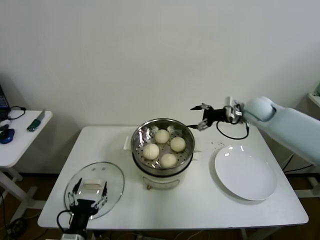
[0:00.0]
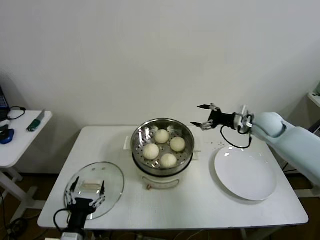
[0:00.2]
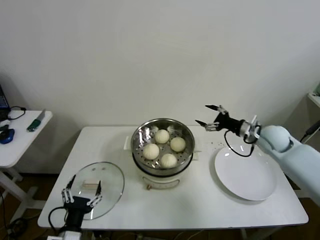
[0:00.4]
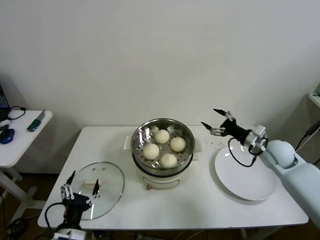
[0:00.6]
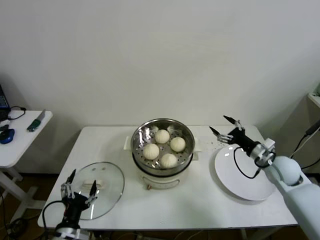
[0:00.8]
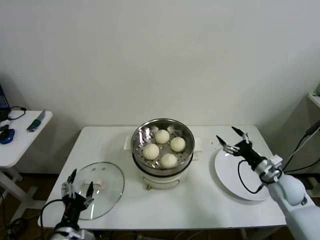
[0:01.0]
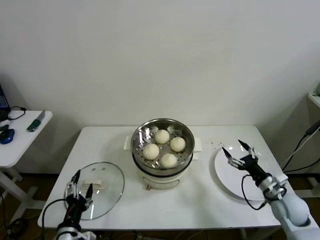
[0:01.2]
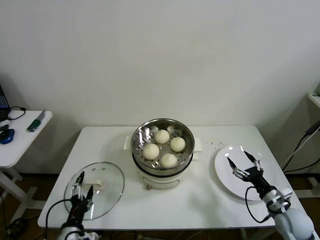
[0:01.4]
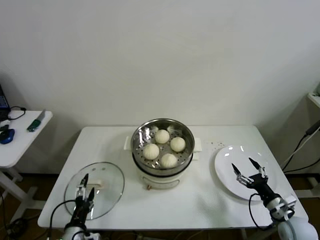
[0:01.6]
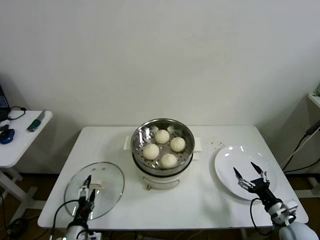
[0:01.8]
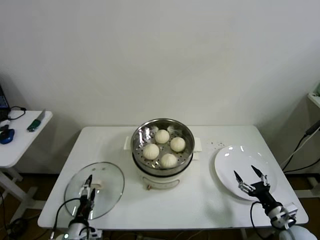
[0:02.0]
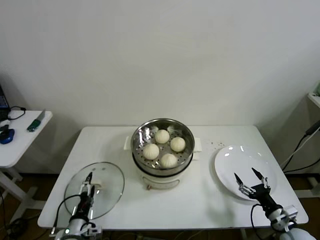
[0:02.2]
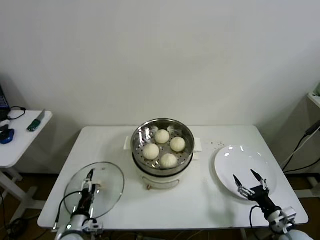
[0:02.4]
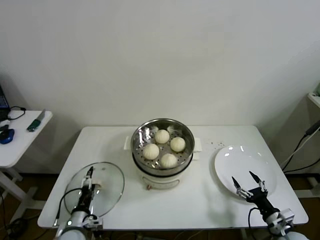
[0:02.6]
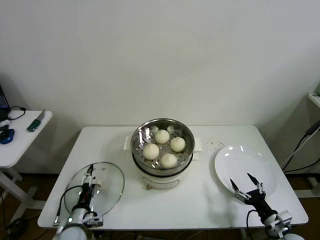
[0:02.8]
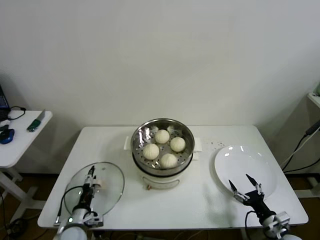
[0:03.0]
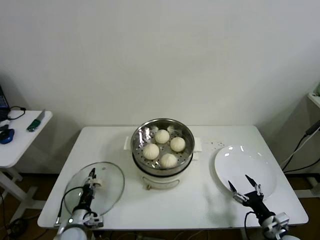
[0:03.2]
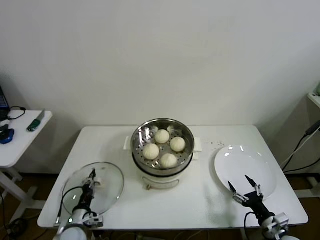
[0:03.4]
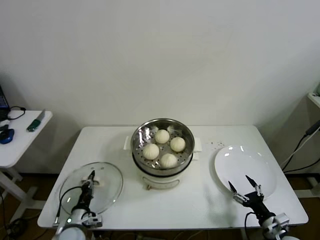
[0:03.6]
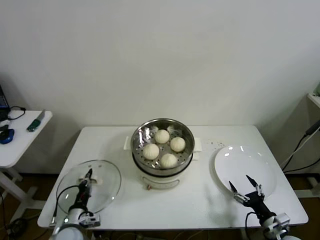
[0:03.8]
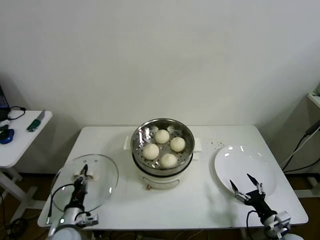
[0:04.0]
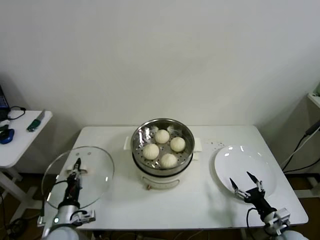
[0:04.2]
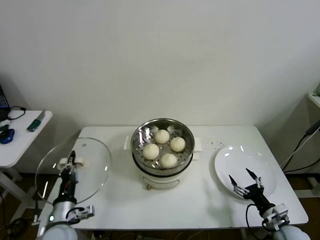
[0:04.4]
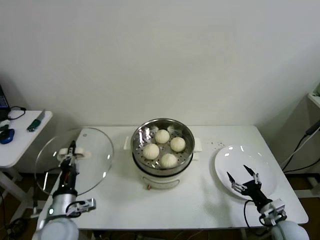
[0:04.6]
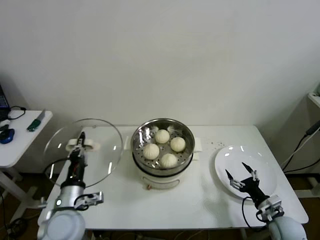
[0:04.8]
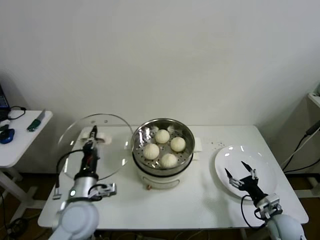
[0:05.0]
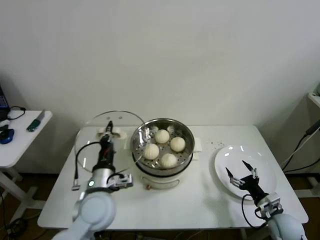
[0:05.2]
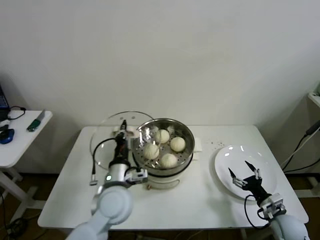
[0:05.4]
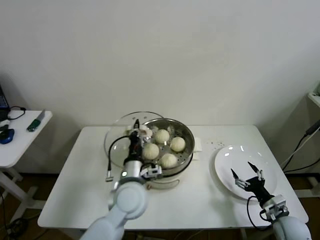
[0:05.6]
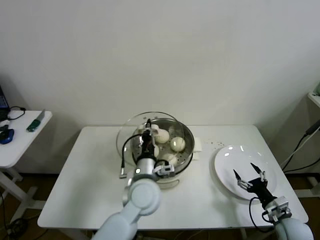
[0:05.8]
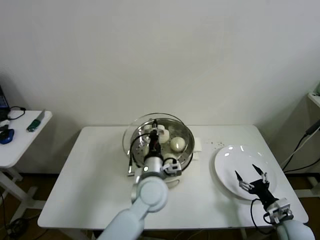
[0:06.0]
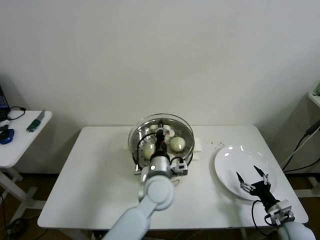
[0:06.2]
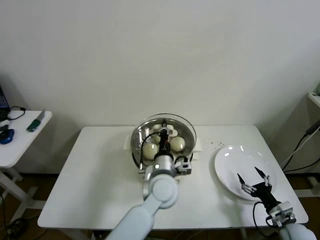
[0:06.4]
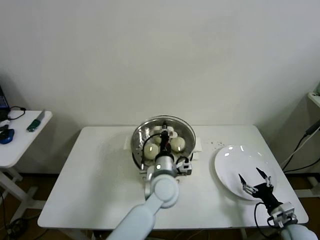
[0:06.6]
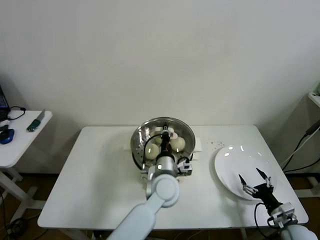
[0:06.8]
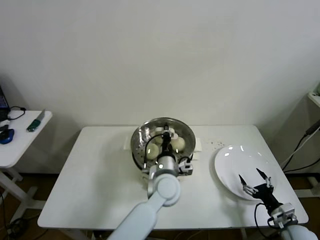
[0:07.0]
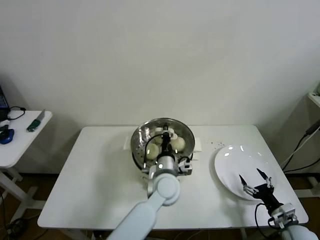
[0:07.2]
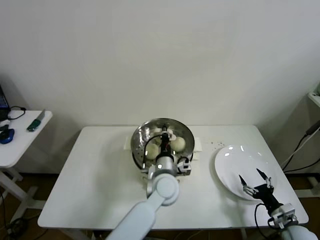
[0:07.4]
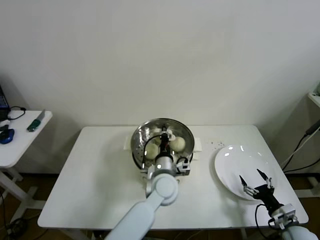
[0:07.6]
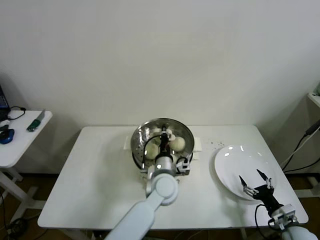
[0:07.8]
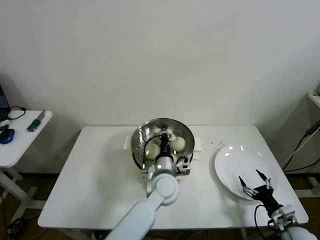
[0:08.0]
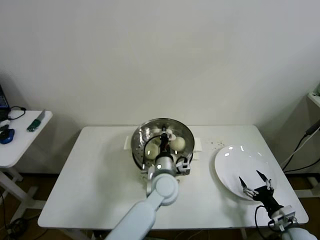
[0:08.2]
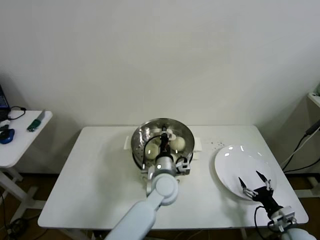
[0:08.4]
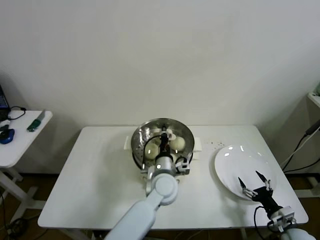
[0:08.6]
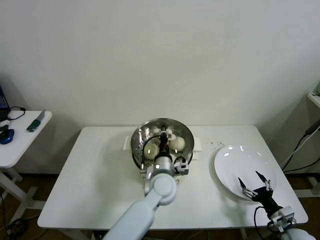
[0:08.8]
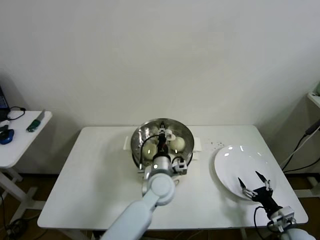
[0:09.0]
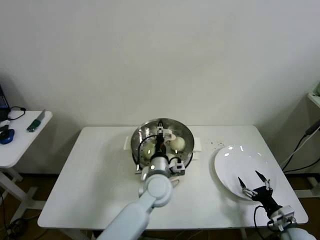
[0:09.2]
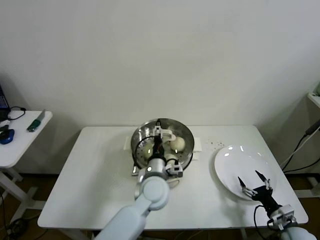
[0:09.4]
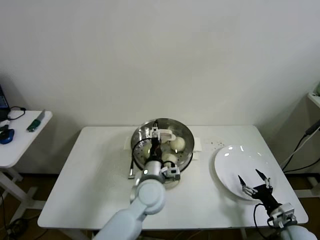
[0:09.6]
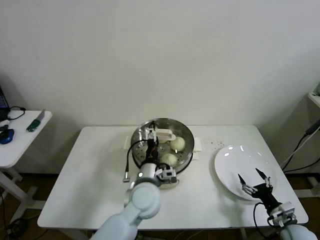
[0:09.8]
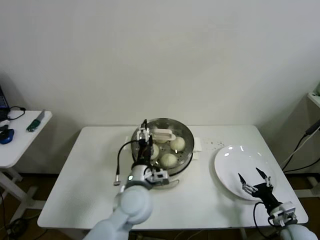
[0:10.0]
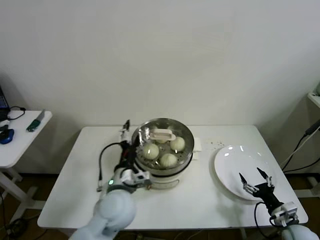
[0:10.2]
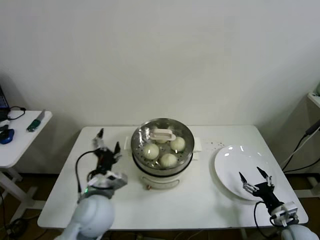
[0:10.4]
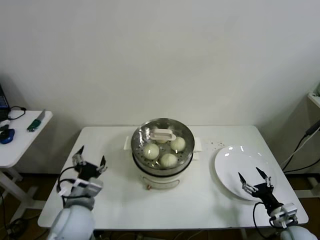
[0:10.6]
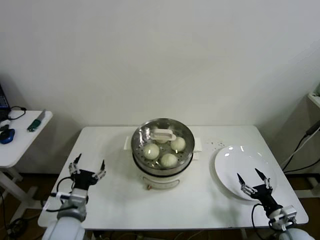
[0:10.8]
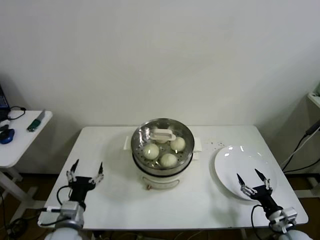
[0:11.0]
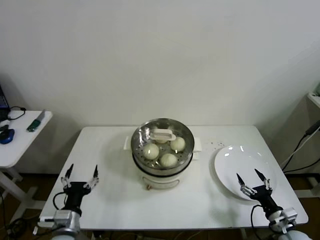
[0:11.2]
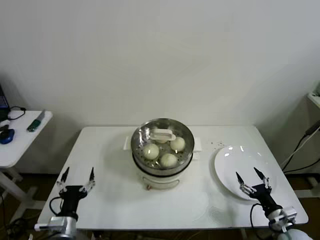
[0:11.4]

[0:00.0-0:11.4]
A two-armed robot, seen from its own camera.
Step, 0:00.0 to 0:03.6: Grasp the pot lid with left gripper.
Step, 0:03.8 to 0:09.4: Place the pot lid on the steamer with left gripper.
0:00.0 to 0:01.4: The right gripper goes roughly 35 cm backward and downward.
0:01.4 to 0:02.8: The right gripper moves backward and downward, some 10 cm. The left gripper goes some 10 cm downward and forward.
0:02.8 to 0:04.2: The left gripper is displaced upward by roughly 5 cm, and closes up.
0:04.2 to 0:05.6: The left gripper goes approximately 25 cm to the right, upward and forward.
0:05.6 to 0:07.2: The left gripper travels to the right by about 10 cm.
0:07.2 to 0:08.6: The grippers make only small movements.
0:08.6 to 0:10.0: The left gripper goes approximately 10 cm to the left and backward, and opens up.
0:10.0 to 0:11.4: The left gripper travels to the left, backward and downward by roughly 30 cm.

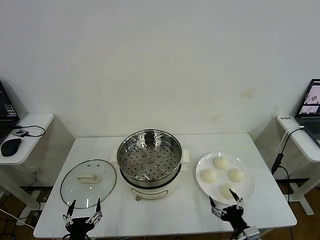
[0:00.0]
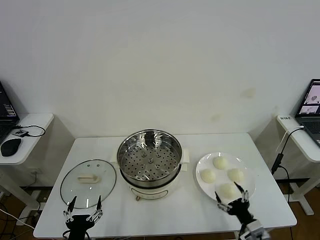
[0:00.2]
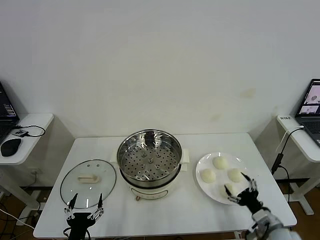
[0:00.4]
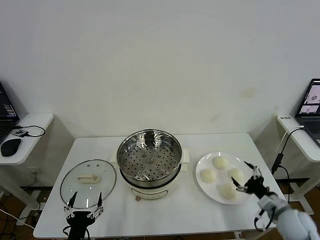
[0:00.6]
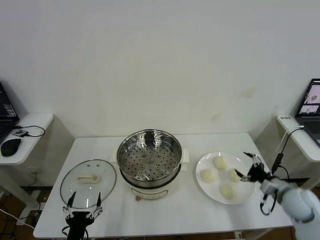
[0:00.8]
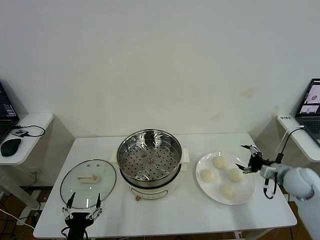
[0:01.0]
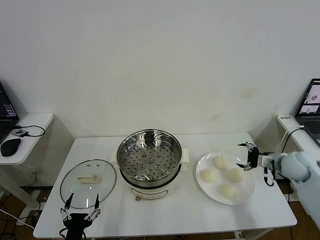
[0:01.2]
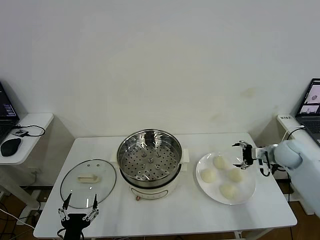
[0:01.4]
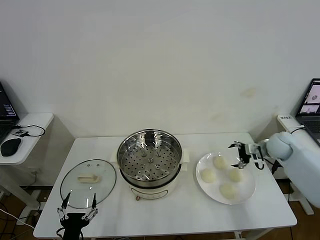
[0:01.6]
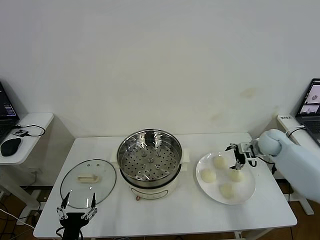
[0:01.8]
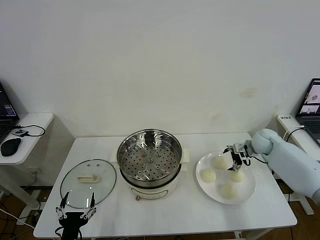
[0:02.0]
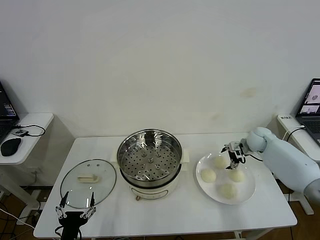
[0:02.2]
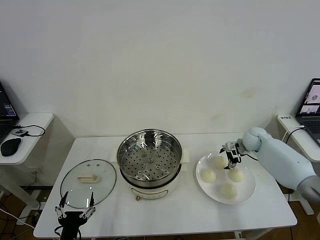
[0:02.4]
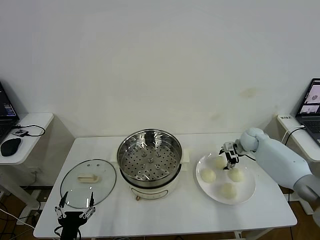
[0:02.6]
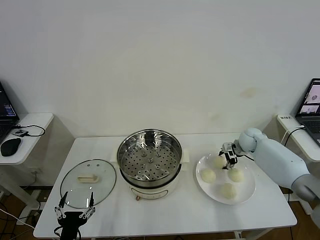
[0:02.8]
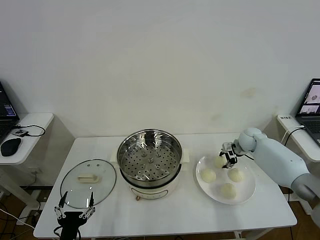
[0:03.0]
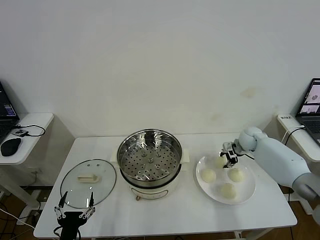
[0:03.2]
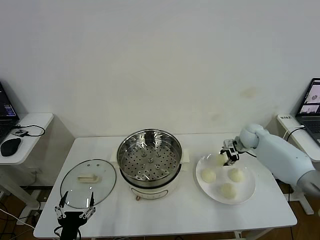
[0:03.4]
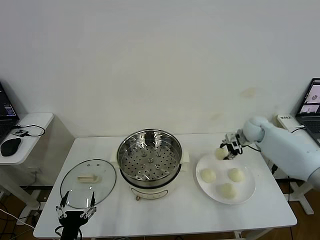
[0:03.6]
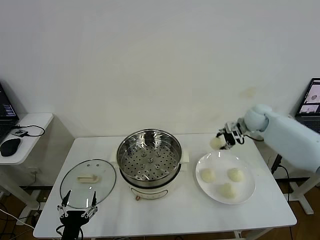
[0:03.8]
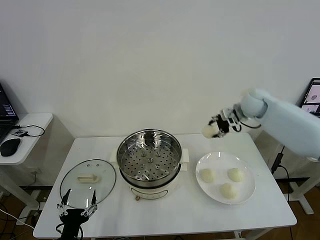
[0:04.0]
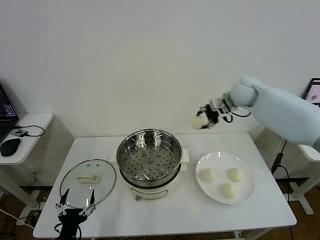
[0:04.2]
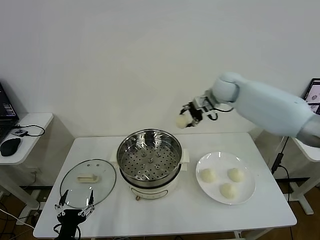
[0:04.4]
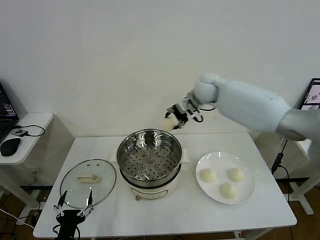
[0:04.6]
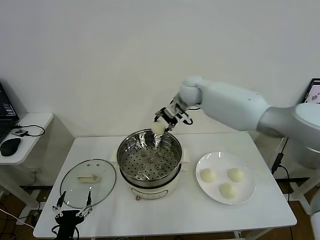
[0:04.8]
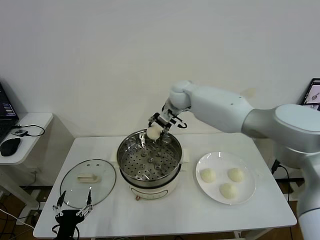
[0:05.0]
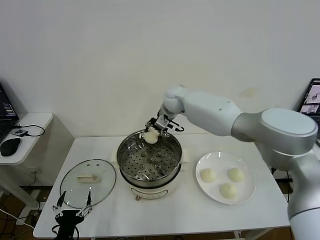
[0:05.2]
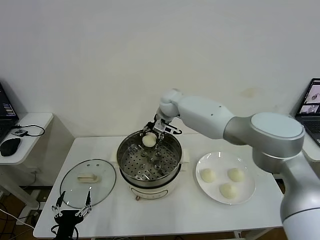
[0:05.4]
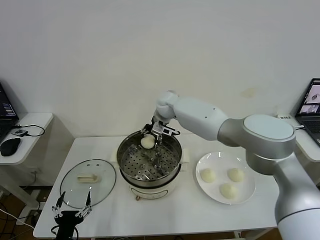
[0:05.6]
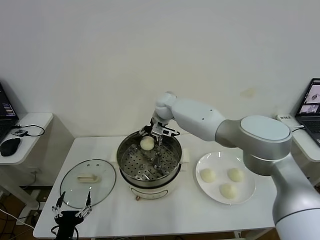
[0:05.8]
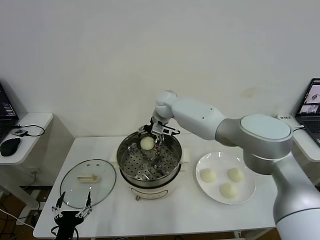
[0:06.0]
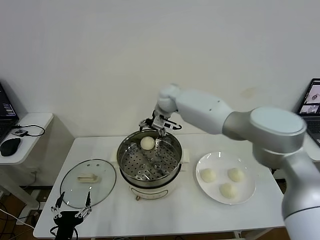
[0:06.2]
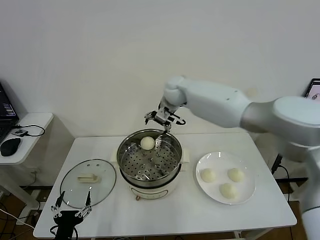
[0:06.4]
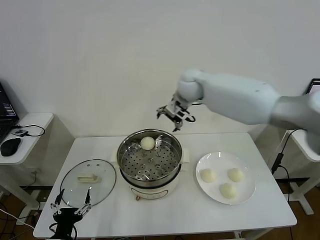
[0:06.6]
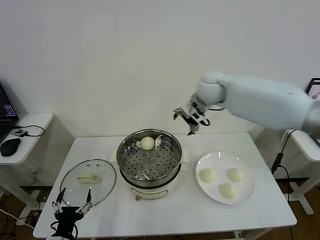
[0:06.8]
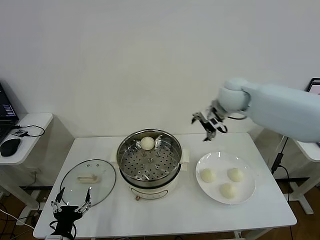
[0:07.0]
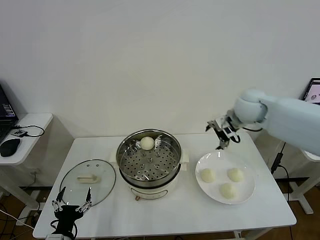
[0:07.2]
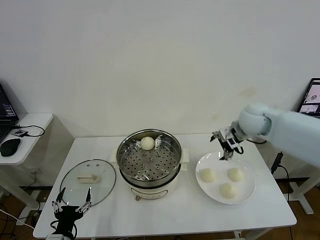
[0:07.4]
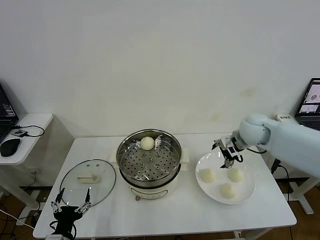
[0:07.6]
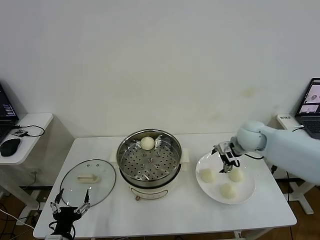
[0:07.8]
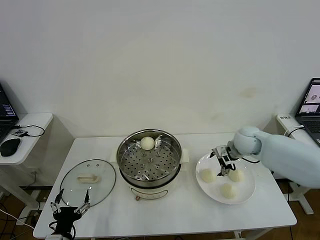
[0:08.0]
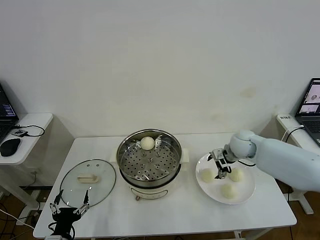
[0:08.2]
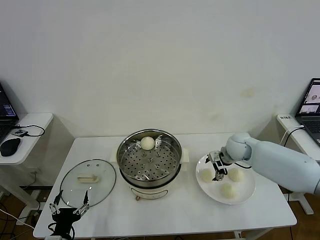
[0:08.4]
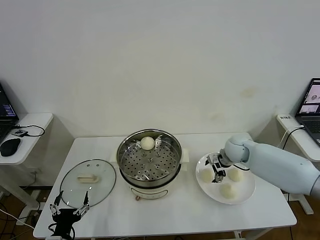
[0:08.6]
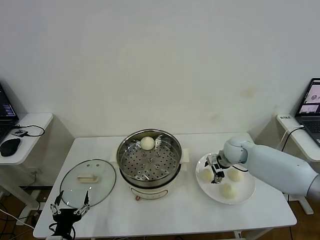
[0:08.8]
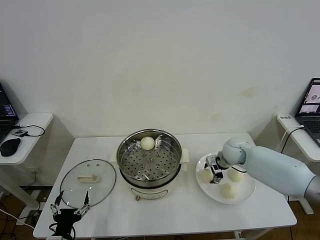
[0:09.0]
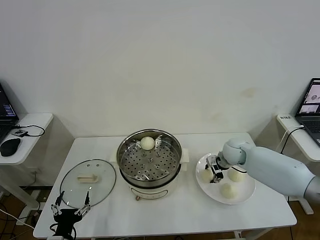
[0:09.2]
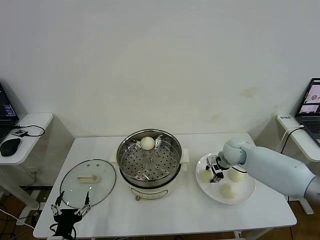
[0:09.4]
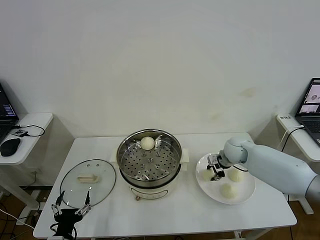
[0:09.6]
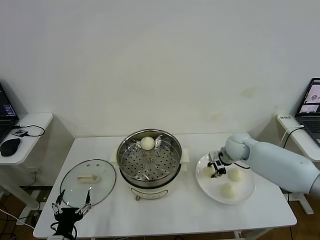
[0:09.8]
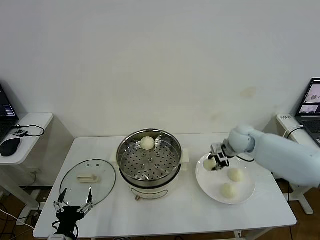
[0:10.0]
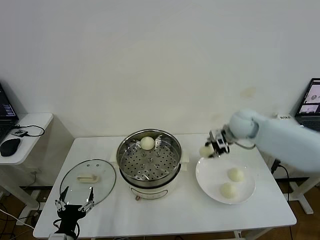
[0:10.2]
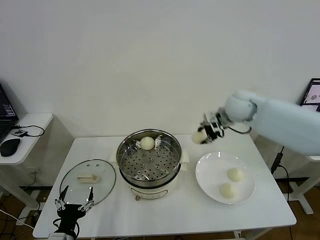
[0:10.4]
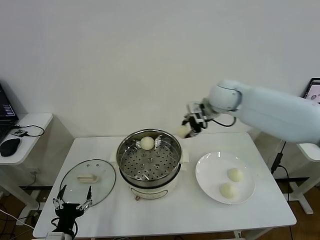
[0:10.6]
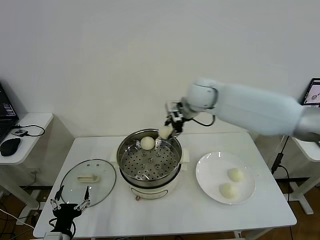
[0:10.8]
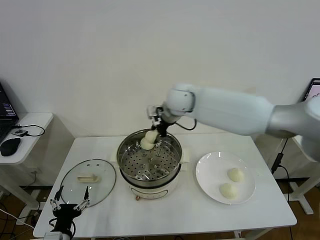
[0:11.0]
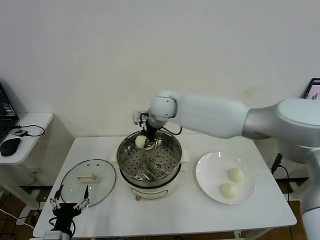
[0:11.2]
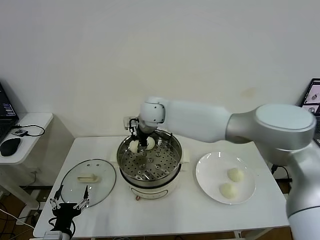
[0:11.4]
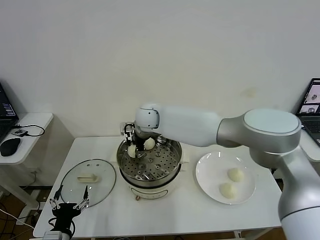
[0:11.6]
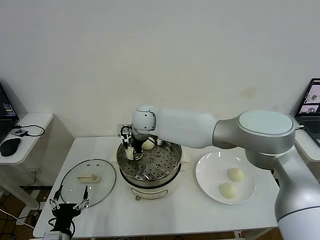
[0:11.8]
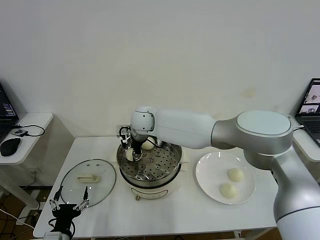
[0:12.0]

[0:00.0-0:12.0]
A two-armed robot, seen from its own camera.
Step, 0:00.0 to 0:03.2: Grasp the baozi in the plate with right gripper.
Step, 0:03.4 to 0:05.8: Place the baozi on the steamer with right gripper.
Step, 0:06.0 to 0:09.0: Grasp the baozi in the plate with right gripper.
0:01.6 to 0:03.0: The right gripper heads forward, to the left and downward, covering approximately 10 cm, and closes.
0:03.0 to 0:04.4: The right gripper moves upward and to the left, about 30 cm.
0:04.4 to 0:06.0: The right gripper heads to the left and downward, covering roughly 20 cm, and opens its fingers.
0:06.0 to 0:07.6: The right gripper moves to the right and backward, roughly 30 cm.
0:07.6 to 0:09.0: The right gripper goes roughly 15 cm downward.
0:09.0 to 0:10.4: The right gripper heads upward, covering approximately 20 cm, and closes up.
0:10.4 to 0:12.0: The right gripper goes about 30 cm to the left.
